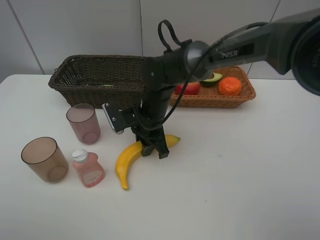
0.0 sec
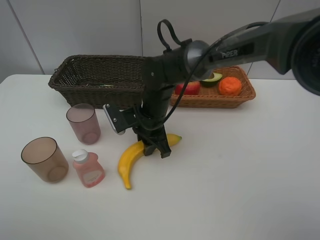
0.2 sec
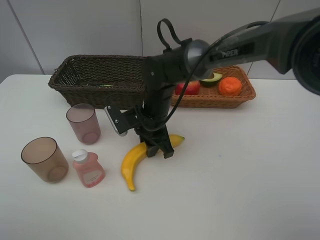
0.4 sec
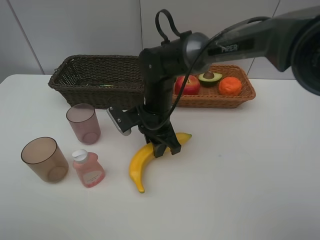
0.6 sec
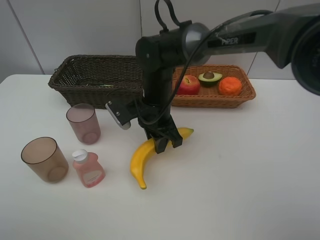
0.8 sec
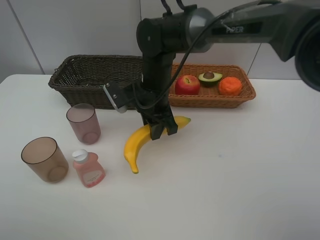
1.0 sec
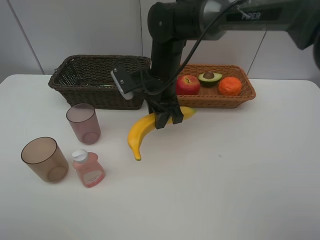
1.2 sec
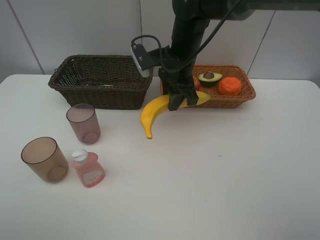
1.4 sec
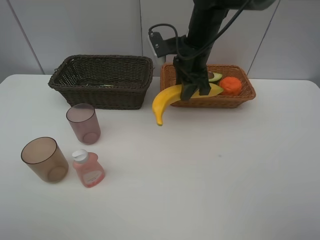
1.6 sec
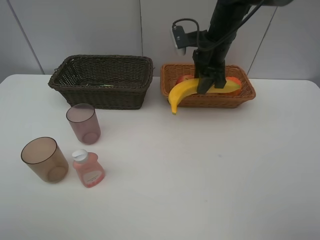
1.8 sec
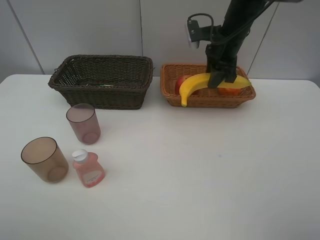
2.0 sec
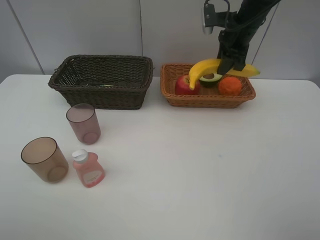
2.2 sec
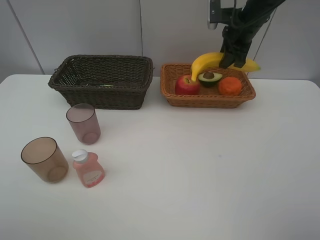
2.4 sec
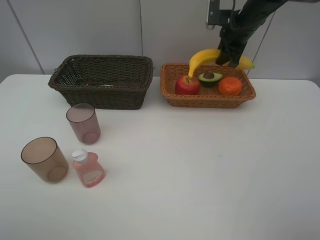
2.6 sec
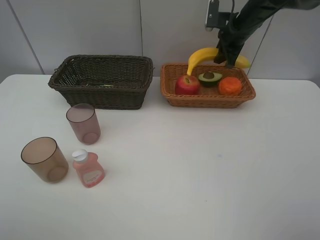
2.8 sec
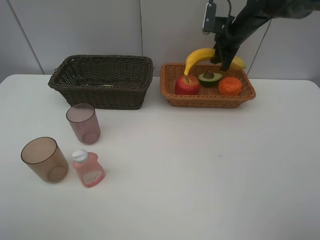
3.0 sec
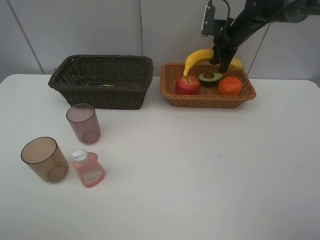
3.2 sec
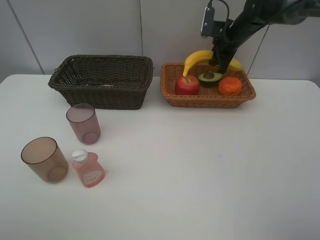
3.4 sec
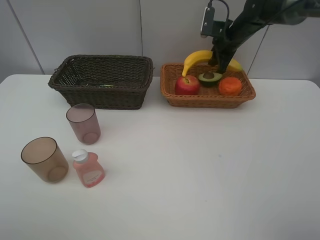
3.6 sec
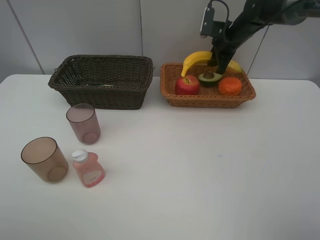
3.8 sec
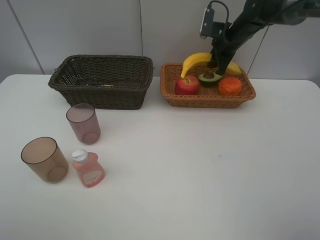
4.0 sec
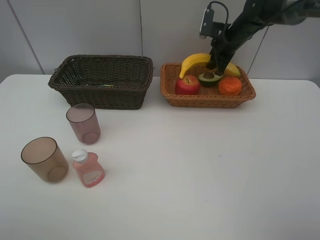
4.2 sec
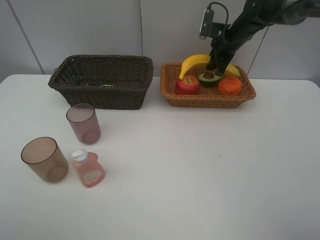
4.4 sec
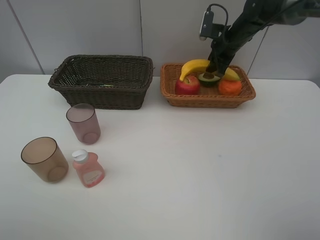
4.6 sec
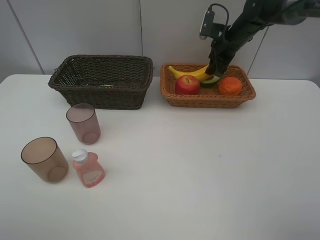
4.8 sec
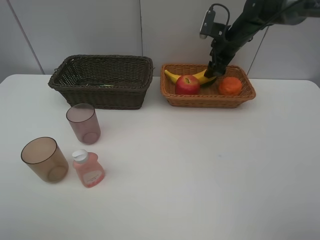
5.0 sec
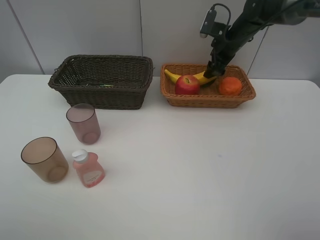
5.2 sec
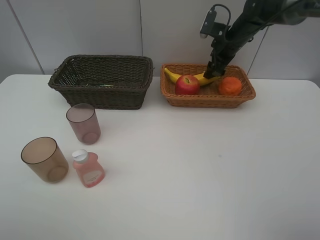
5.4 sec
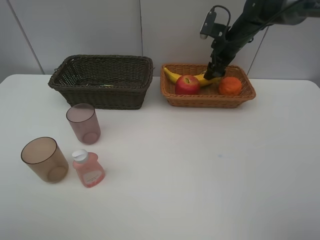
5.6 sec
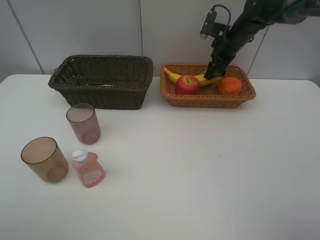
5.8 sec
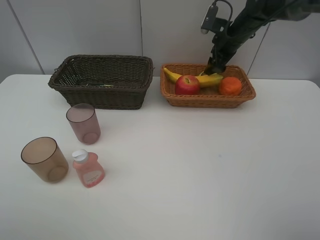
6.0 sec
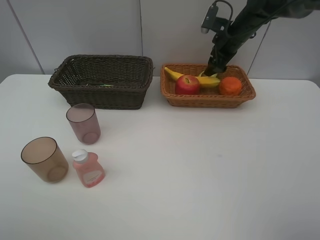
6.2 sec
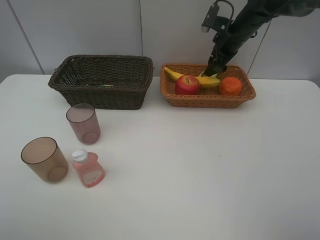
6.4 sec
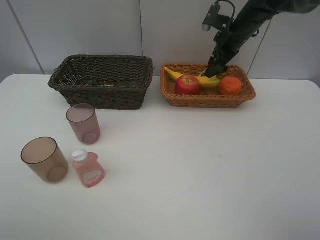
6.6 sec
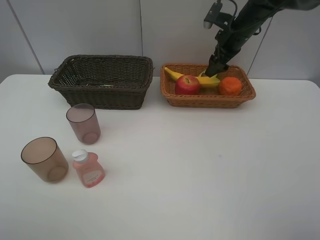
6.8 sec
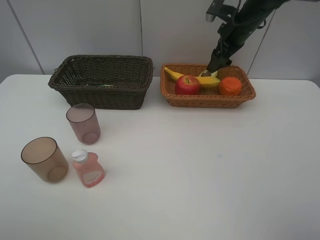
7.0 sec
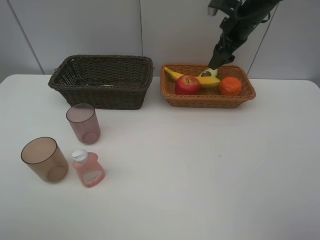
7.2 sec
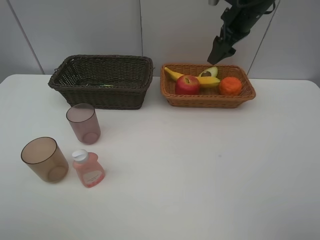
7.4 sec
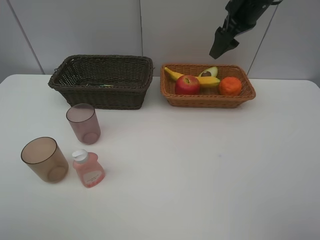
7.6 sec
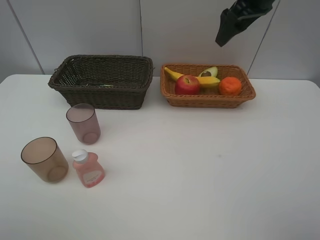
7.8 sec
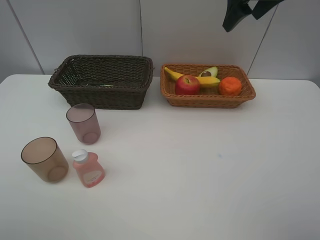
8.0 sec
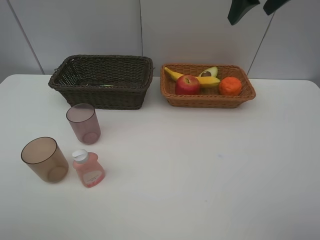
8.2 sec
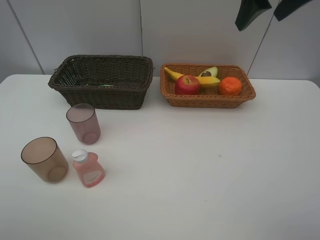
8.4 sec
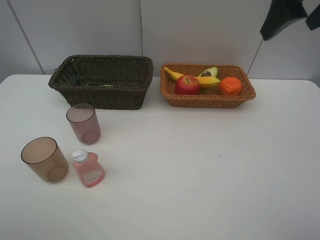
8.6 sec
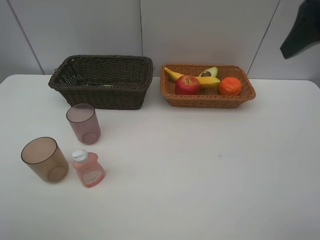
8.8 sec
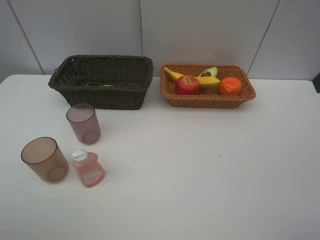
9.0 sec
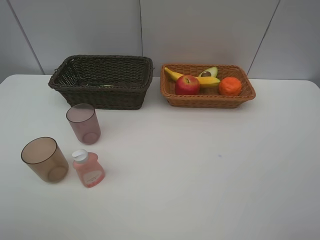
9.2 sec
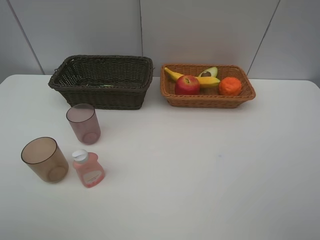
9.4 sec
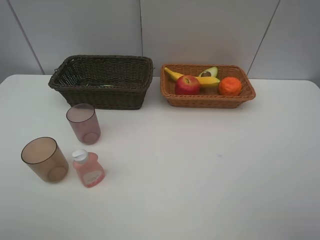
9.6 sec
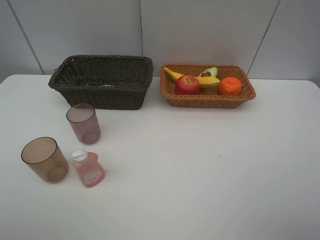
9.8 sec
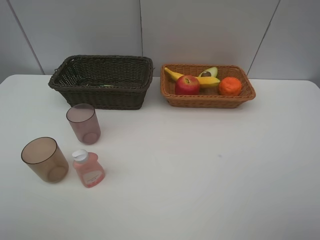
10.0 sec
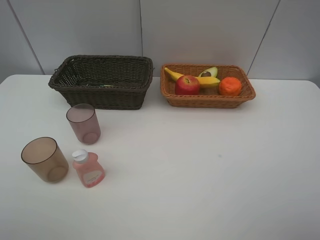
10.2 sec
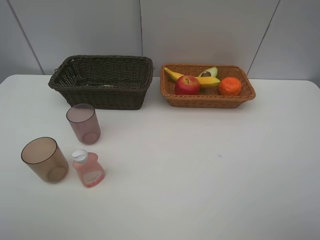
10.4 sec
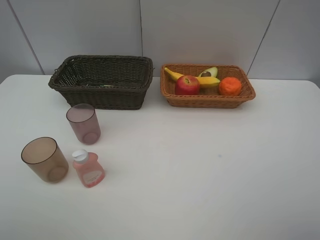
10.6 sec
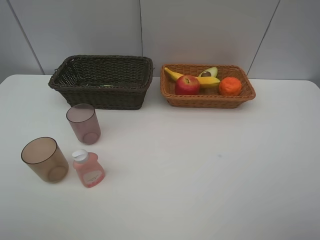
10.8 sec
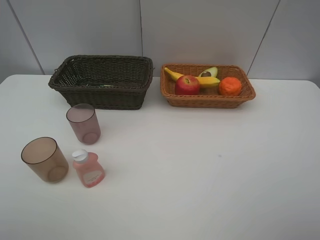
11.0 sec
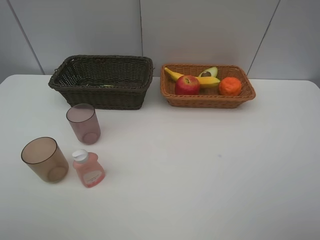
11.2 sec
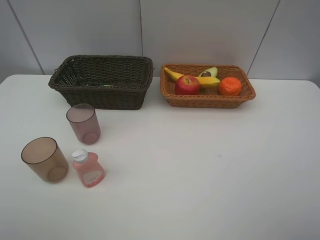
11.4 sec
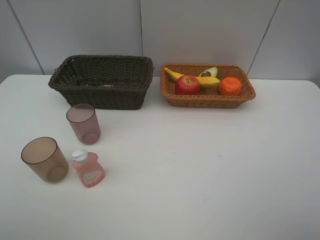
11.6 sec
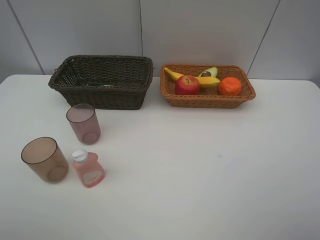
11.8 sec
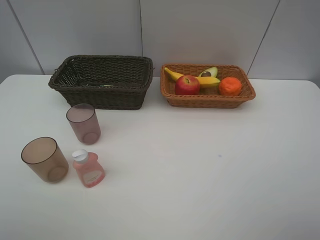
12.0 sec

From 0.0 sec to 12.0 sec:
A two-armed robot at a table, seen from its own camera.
Task of the whole recording: Place multiple objects separately in different baskets.
Step, from 1.0 sec to 5.4 sec: Place the banana in the light basket with right gripper.
From 0.0 sec to 1.6 sec: The right gripper travels upward, to the right and forward by approximately 15 cm.
From 1.6 sec to 3.0 sec: The right gripper heads to the right and forward, covering some 15 cm.
From 3.0 sec to 4.4 sec: The grippers move only a little.
From 4.4 sec to 6.0 sec: The right gripper opens up.
From 6.0 sec to 7.6 sec: The right gripper moves upward and backward, roughly 10 cm.
From 7.6 sec to 9.0 sec: The right gripper is displaced backward by approximately 30 cm.
From 10.4 sec to 12.0 sec: The two grippers keep their place.

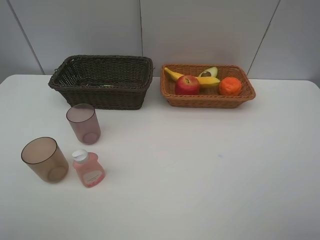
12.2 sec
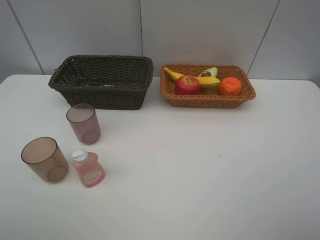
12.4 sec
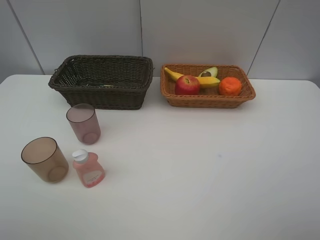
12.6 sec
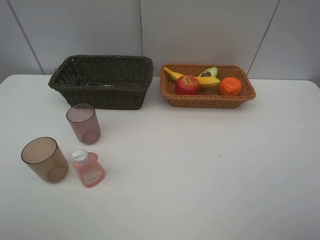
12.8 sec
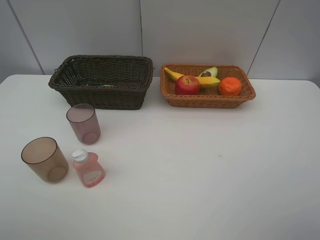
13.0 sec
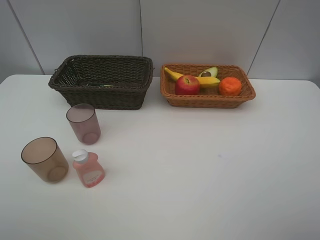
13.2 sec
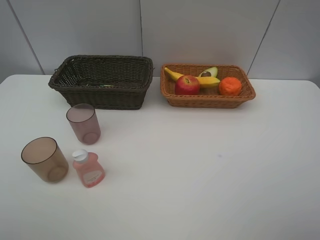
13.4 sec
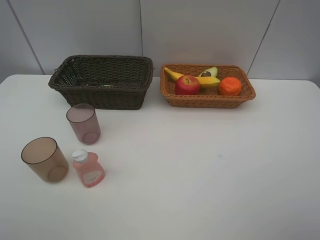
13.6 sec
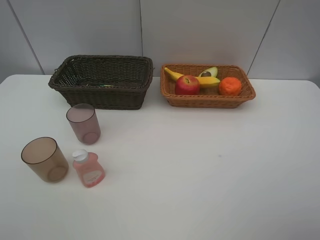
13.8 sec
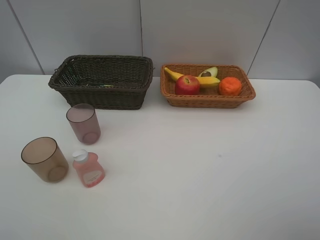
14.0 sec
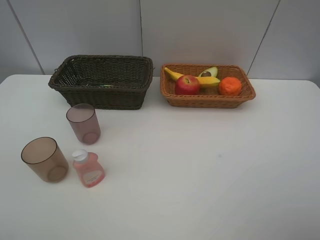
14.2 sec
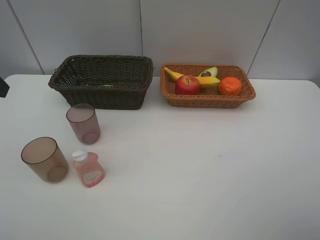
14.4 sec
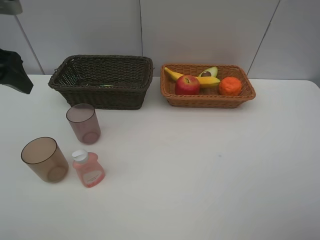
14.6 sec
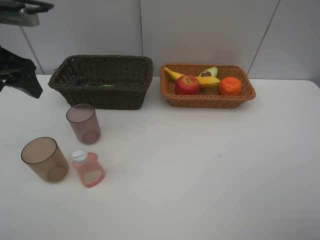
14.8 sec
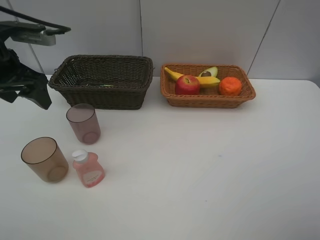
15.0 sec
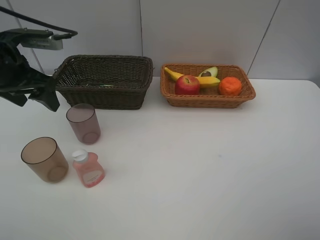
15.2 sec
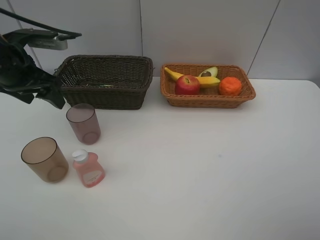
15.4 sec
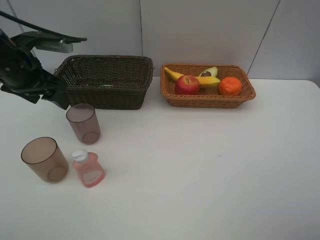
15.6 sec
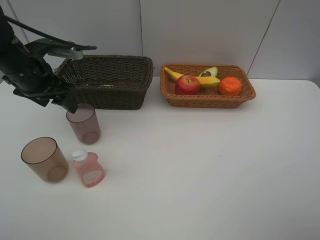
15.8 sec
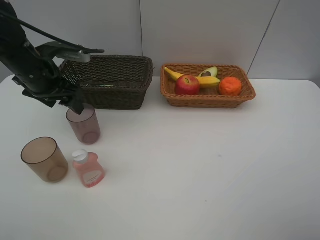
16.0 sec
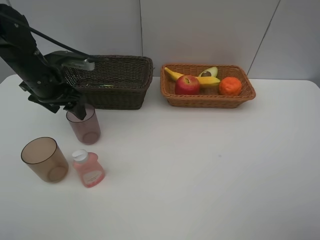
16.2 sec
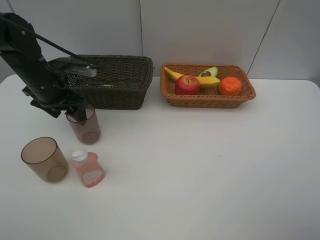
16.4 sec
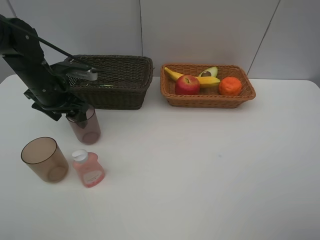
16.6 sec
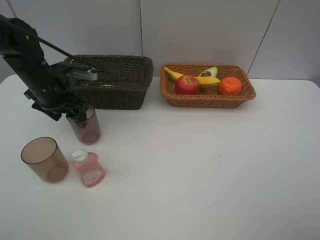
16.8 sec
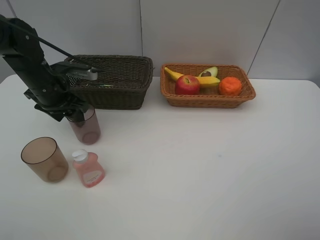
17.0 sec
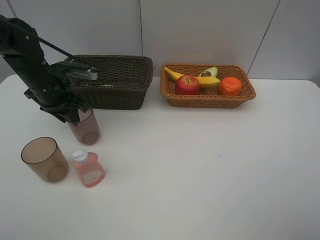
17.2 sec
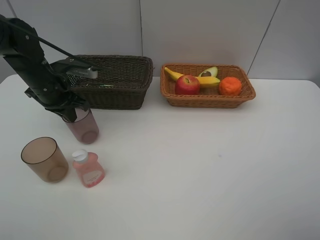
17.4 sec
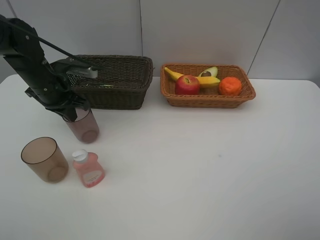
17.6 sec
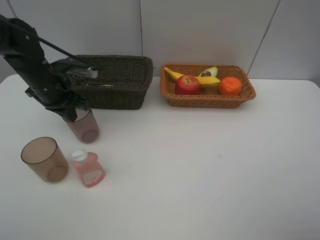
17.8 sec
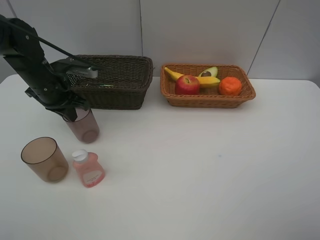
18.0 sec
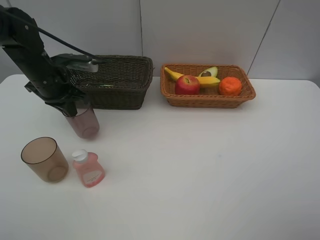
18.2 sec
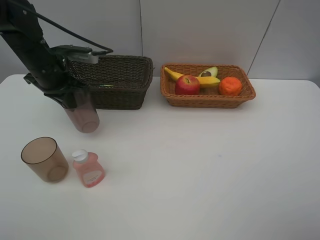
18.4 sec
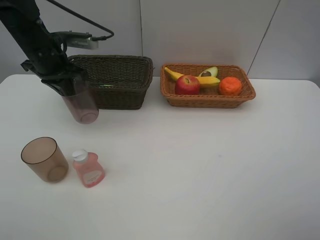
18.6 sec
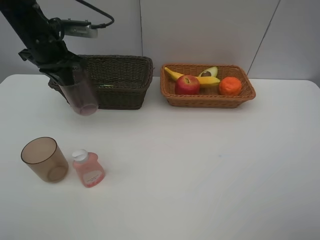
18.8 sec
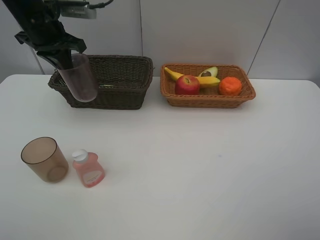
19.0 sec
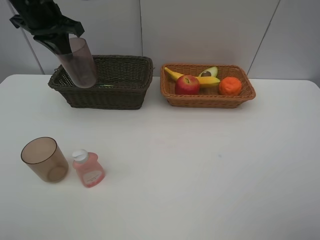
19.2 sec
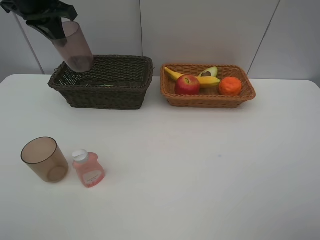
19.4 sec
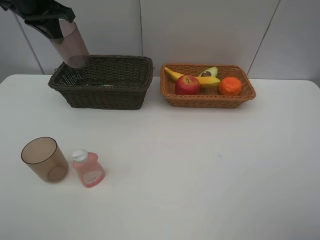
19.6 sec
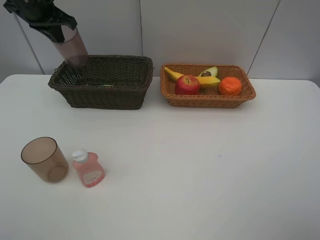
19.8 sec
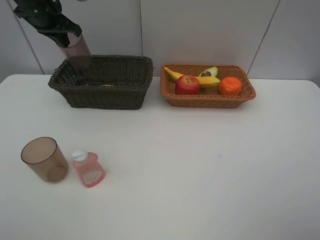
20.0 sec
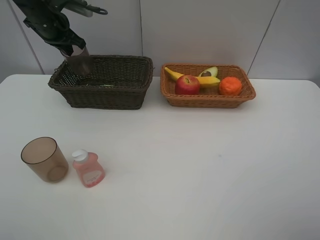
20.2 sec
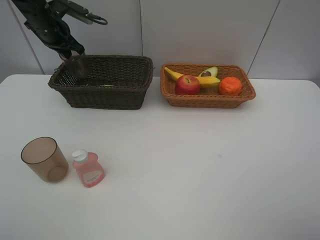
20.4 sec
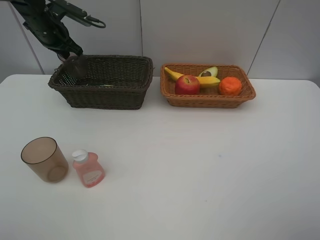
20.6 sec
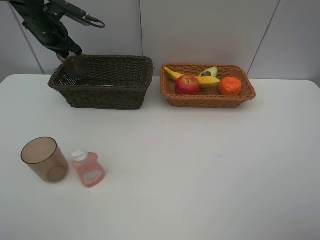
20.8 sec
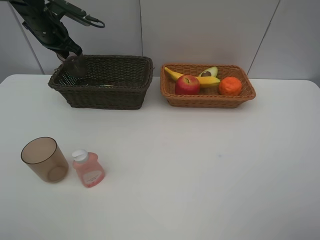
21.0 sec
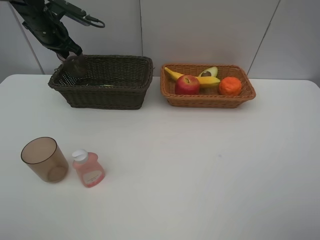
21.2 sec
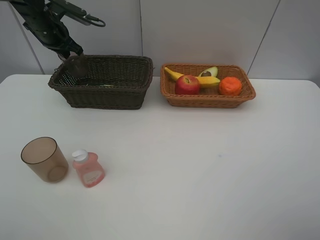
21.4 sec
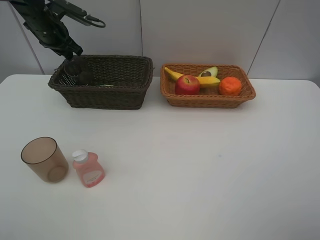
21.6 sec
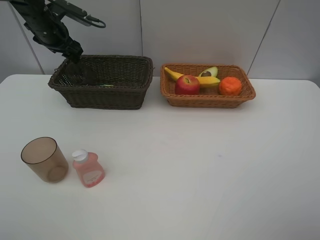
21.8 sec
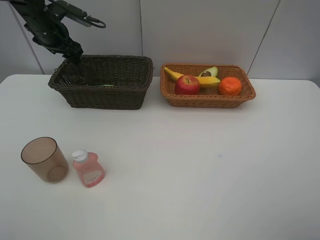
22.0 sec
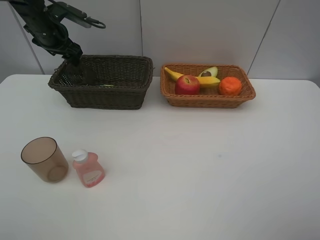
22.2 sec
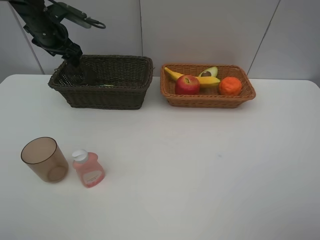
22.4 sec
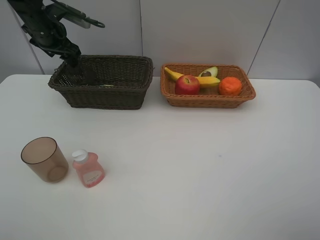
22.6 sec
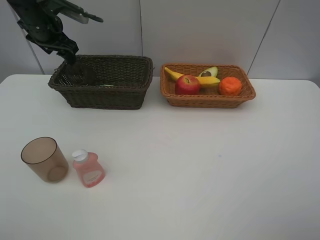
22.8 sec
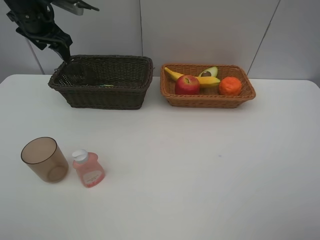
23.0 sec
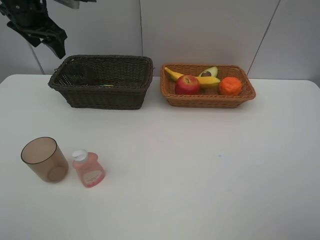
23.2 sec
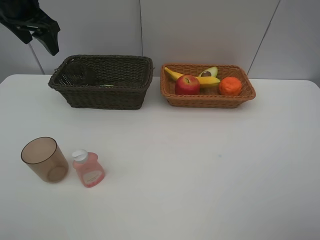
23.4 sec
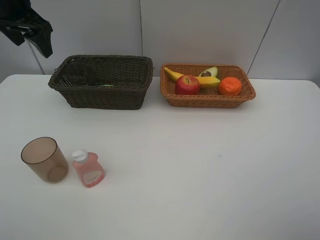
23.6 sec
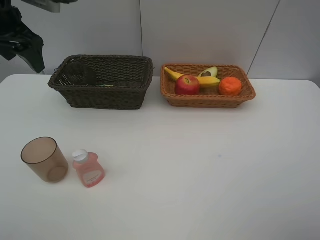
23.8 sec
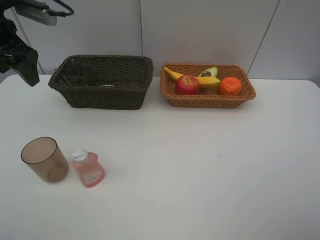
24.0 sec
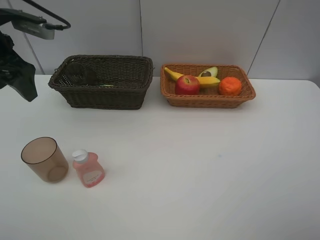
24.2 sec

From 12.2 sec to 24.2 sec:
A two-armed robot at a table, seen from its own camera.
Task of the whole recording: Place multiple objects separately in different baskets.
Step, from 12.2 sec to 18.4 sec: Pick up the red cup with left gripper.
Step, from 18.6 sec to 23.0 sec: Place the red cup in the dark basket with left gripper.
From 13.8 sec to 15.2 sec: The left gripper travels forward and downward by roughly 20 cm.
From 15.2 sec to 16.6 sec: The left gripper moves downward, about 10 cm.
From 16.6 sec to 18.2 sec: The left gripper closes up.
From 18.2 sec to 19.8 sec: The left gripper goes about 15 cm upward and forward.
From 19.8 sec to 21.2 sec: The left gripper moves downward, some 5 cm.
From 21.2 sec to 22.6 sec: The left gripper opens its fingers.
From 22.6 sec to 24.2 sec: The left gripper is displaced backward by roughly 15 cm.
